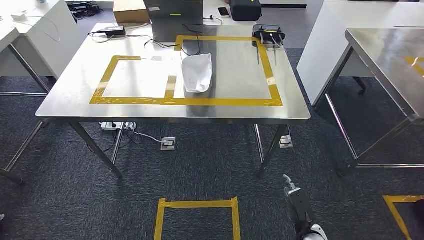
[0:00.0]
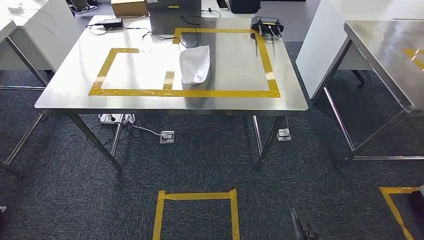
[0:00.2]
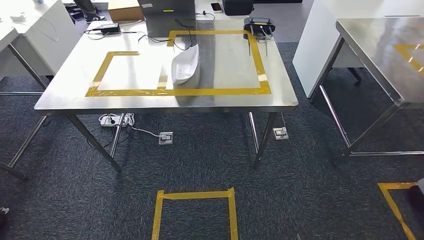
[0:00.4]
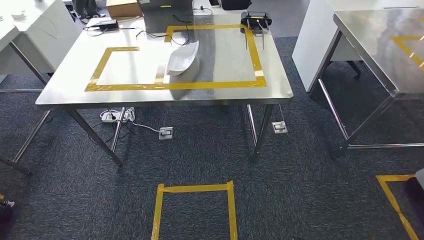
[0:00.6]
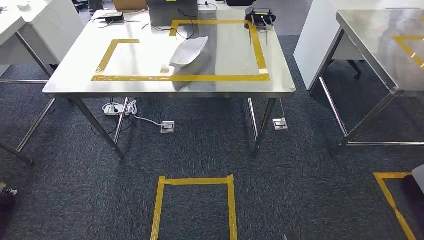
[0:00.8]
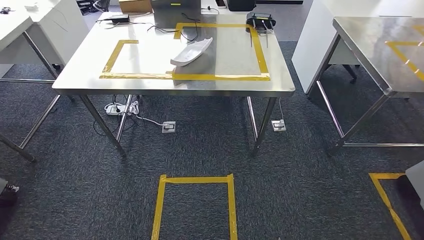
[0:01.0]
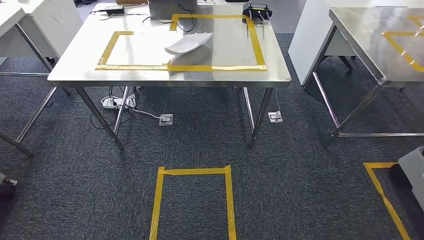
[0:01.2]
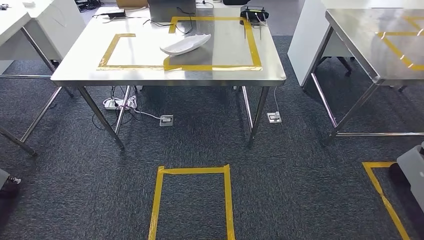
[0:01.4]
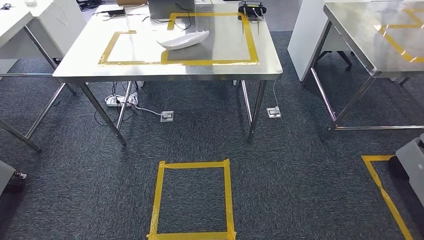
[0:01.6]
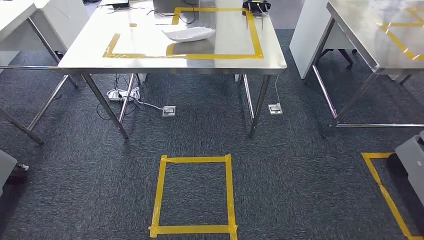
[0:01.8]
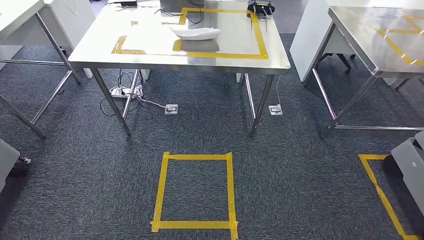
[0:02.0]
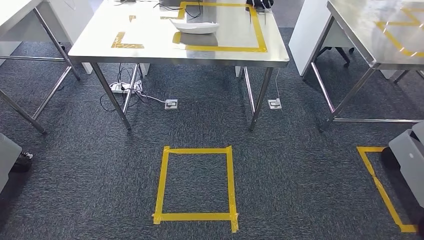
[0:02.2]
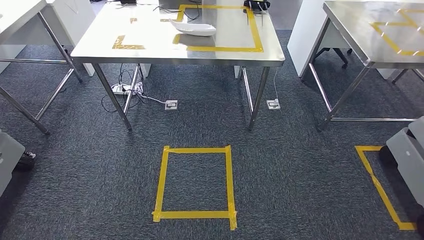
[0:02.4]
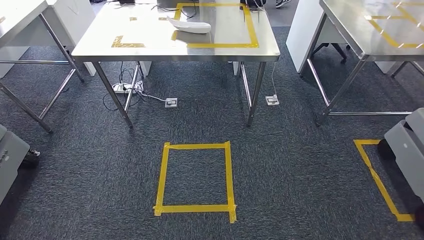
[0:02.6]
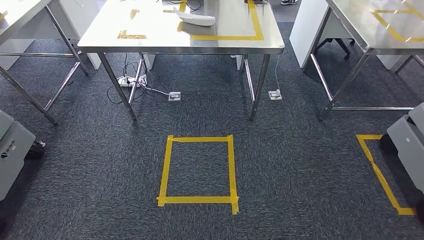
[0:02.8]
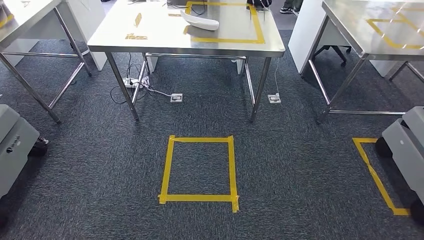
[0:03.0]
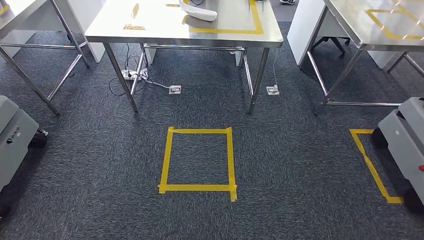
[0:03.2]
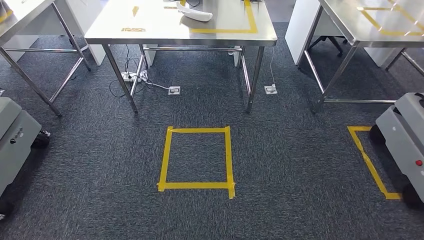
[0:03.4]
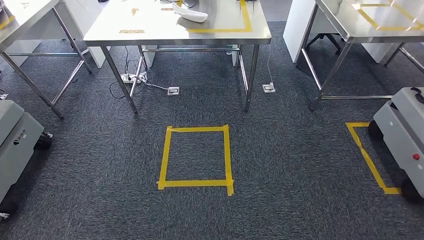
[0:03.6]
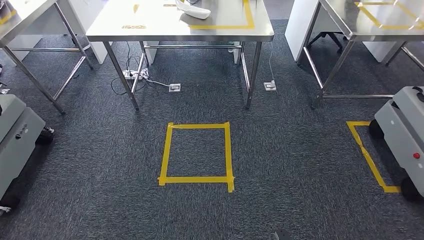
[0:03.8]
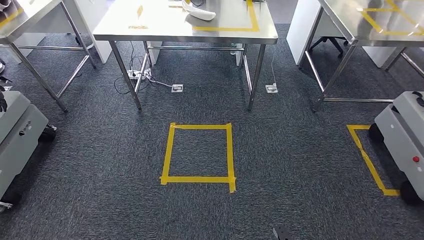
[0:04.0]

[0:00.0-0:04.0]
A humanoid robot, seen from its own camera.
Step, 0:00.0 to 0:04.0: Move to the initial position at the workbench.
